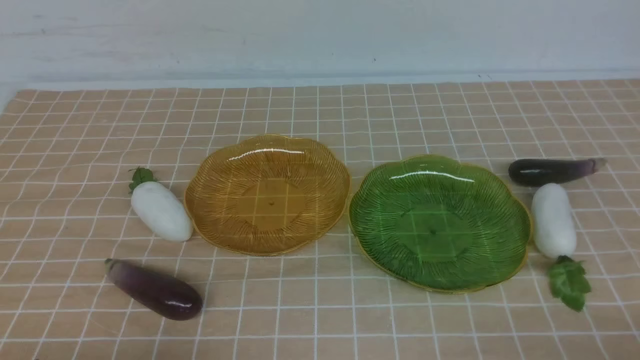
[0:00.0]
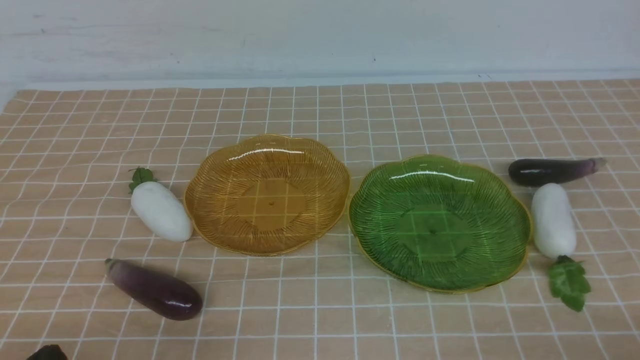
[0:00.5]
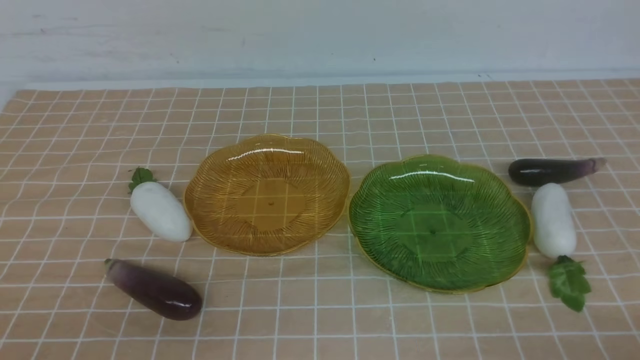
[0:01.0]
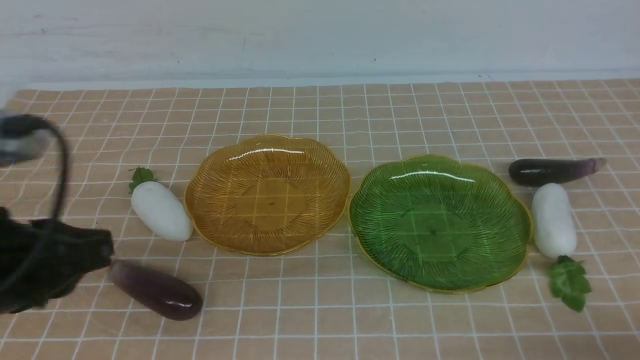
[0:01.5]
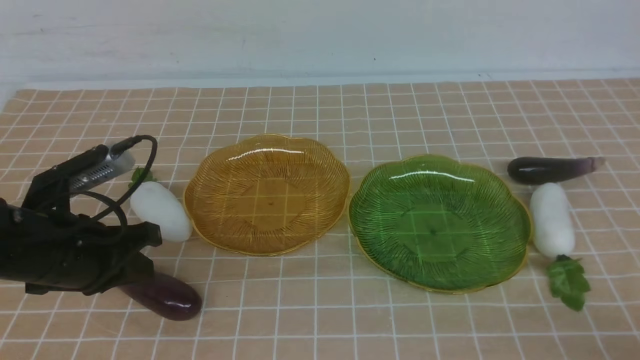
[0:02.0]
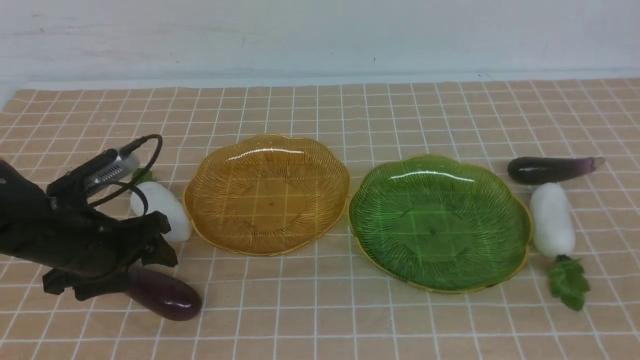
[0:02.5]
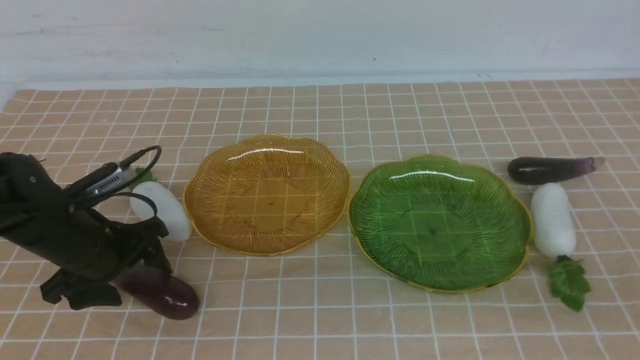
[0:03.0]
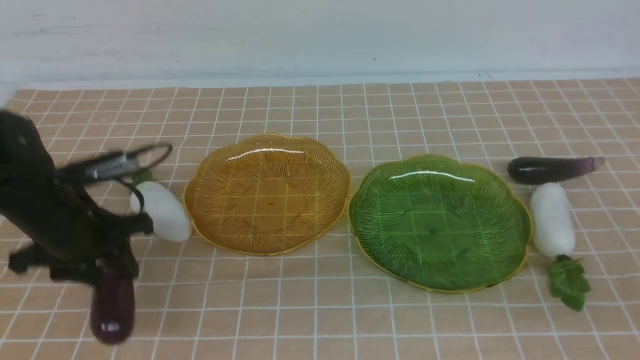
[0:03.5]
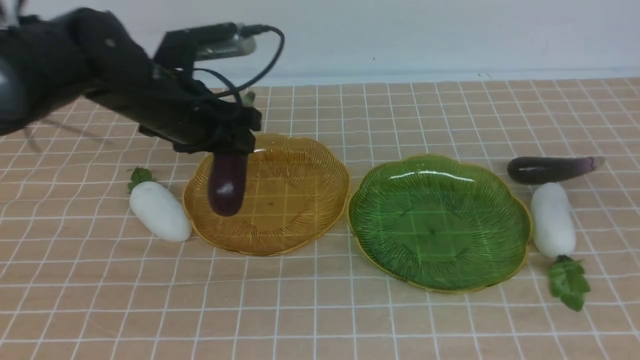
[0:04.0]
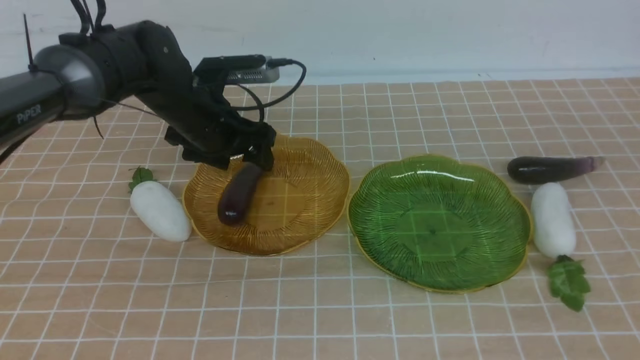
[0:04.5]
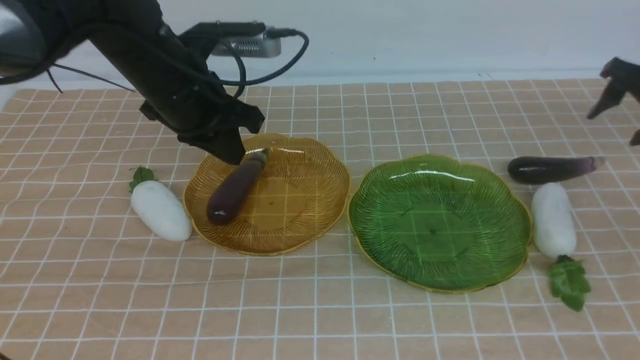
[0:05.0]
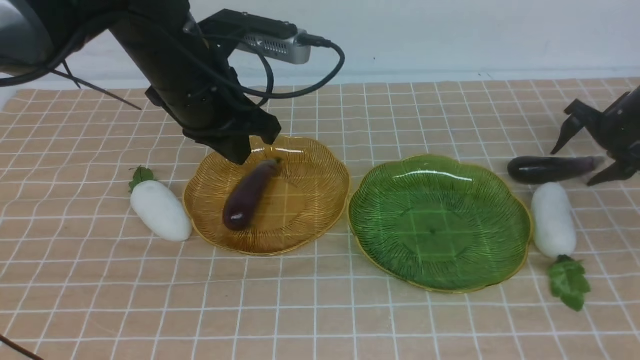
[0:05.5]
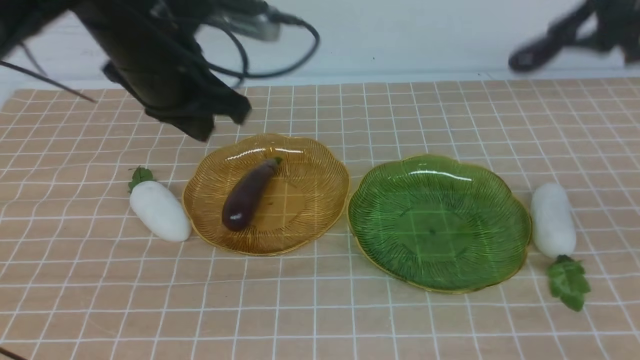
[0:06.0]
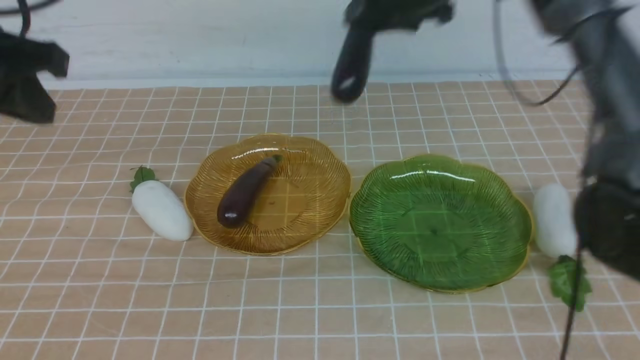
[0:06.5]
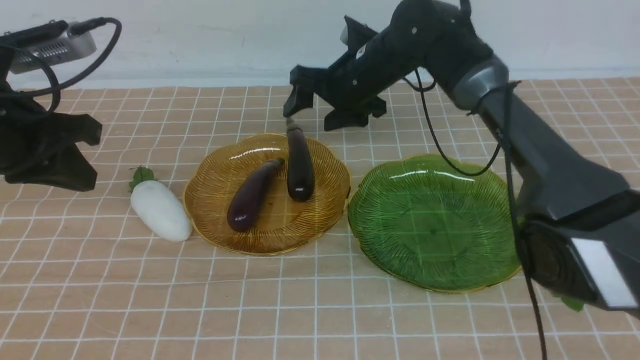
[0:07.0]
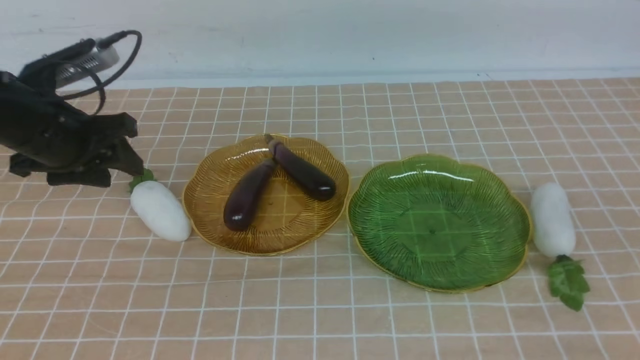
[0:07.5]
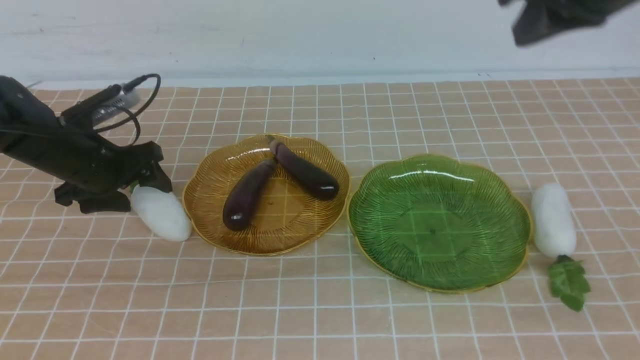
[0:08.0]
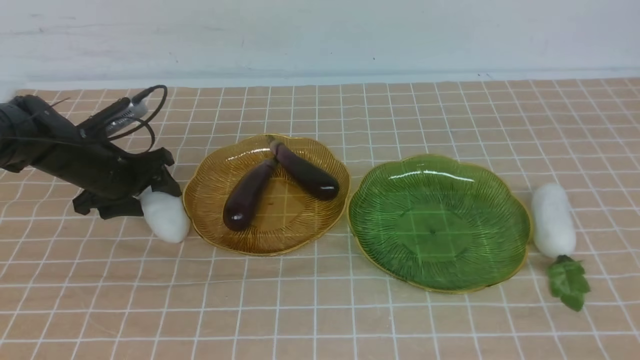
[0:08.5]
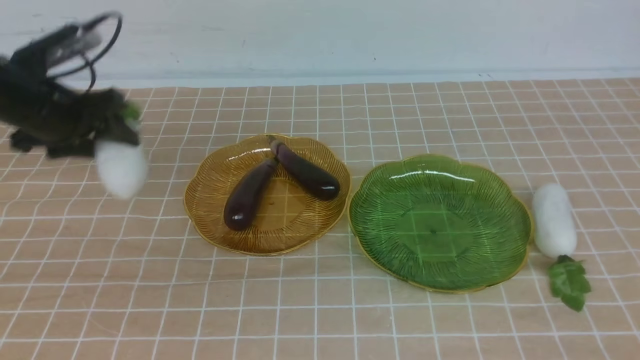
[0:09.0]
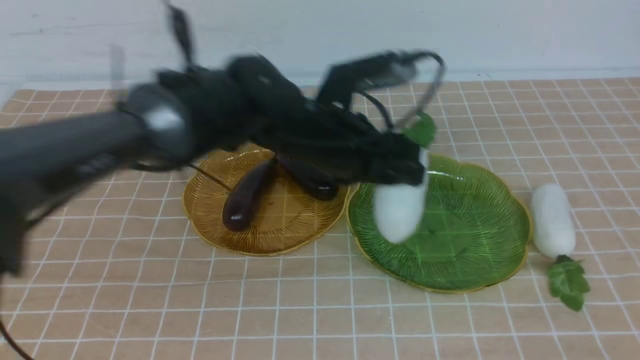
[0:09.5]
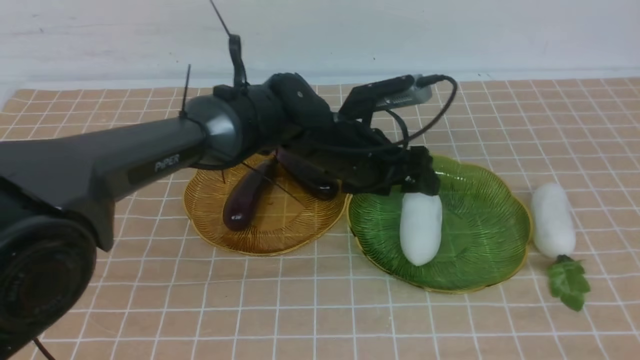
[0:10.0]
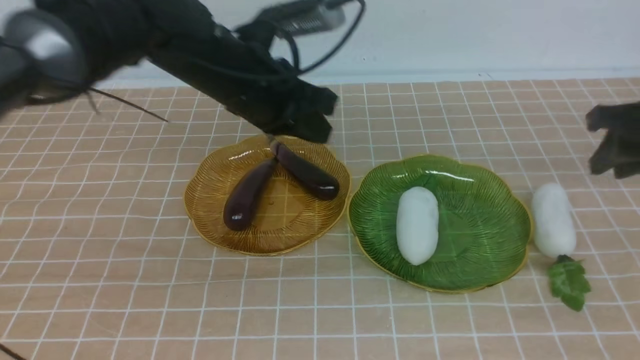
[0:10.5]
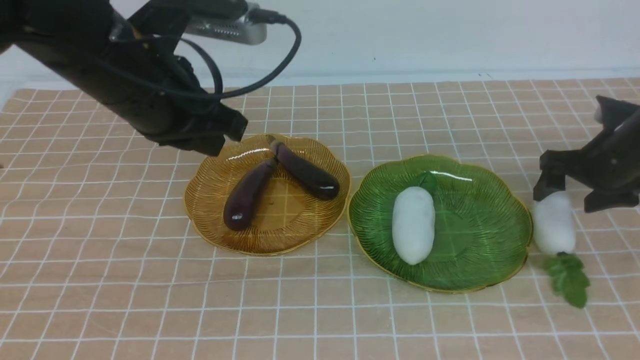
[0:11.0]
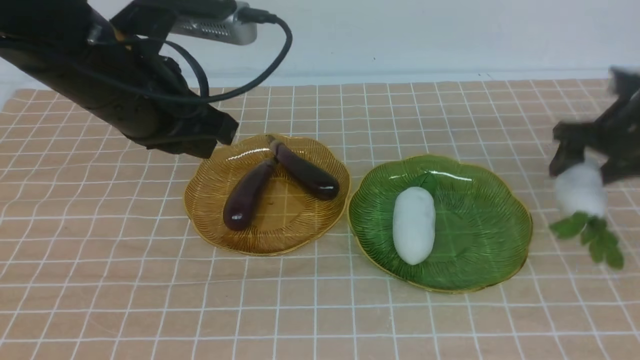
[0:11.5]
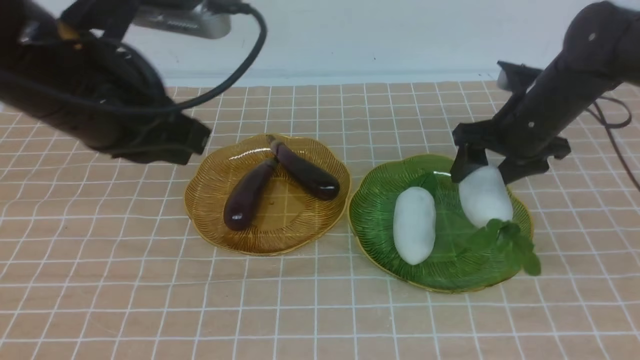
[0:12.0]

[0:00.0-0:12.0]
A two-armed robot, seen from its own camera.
Step, 0:00.0 to 0:04.5: use the left arm to grab an eggplant and put it into the left plate.
Step, 0:05.0 to 0:06.5: use the right arm to grab an eggplant and put it into the left plate.
Step, 0:07.0 to 0:09.5: use the left arm to grab a radish and put it into the right plate.
0:00.0 to 0:02.0: The left gripper goes approximately 20 cm forward, and opens up.
0:02.0 to 0:04.0: The right gripper goes roughly 30 cm forward, and opens its fingers. The left gripper is displaced forward, to the right and upward by roughly 20 cm, and closes its fingers.
0:04.0 to 0:06.0: The left gripper moves to the left, backward and upward, roughly 20 cm. Meanwhile the right gripper goes some 35 cm to the left.
0:06.0 to 0:08.0: The right gripper travels backward, upward and to the right by some 40 cm, and closes its fingers. The left gripper travels downward and forward by about 20 cm, and opens its fingers.
0:08.0 to 0:10.0: The right gripper goes about 20 cm downward, forward and to the right, and opens its fingers. The left gripper goes roughly 25 cm to the right and upward, and closes its fingers.
0:10.0 to 0:12.0: The left gripper goes roughly 20 cm backward, to the left and upward; the right gripper heads upward and to the left, covering some 15 cm, and opens up.

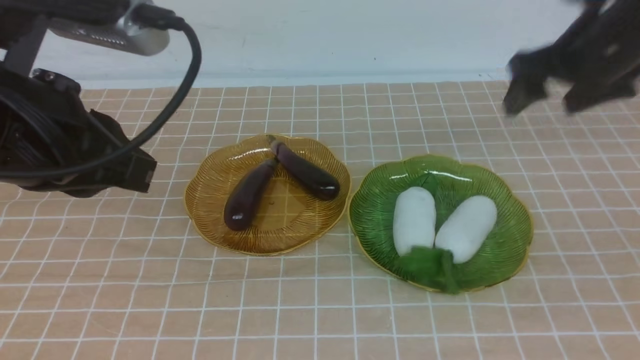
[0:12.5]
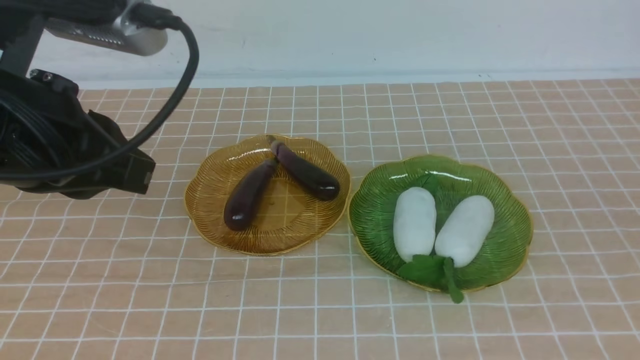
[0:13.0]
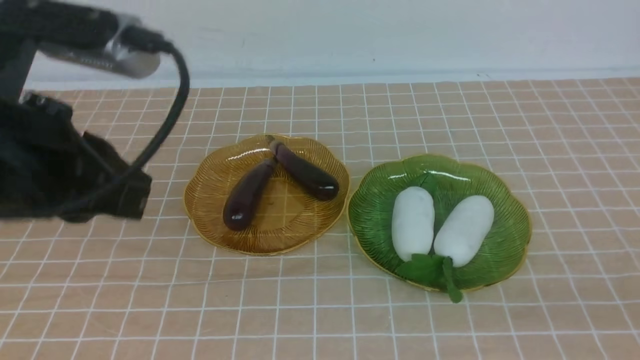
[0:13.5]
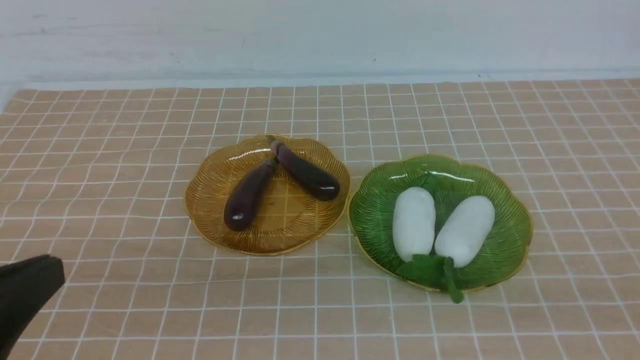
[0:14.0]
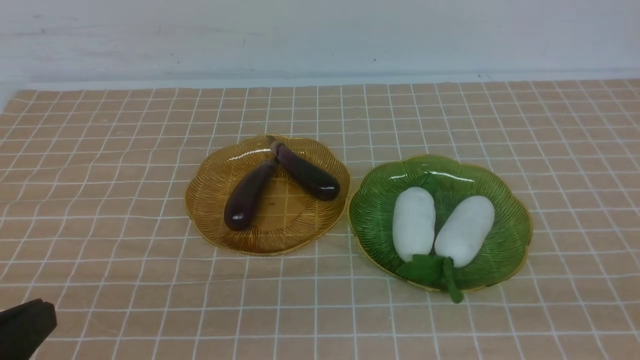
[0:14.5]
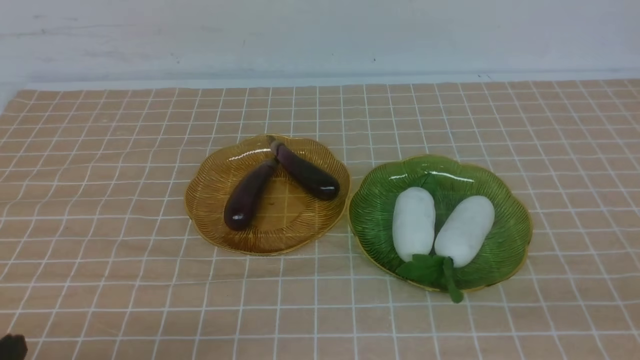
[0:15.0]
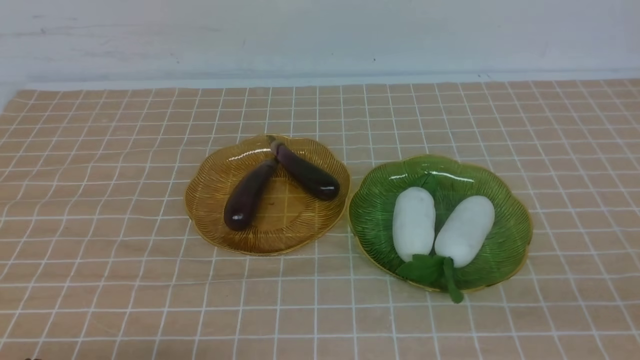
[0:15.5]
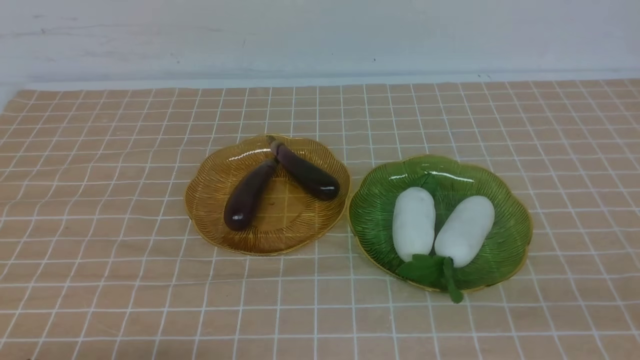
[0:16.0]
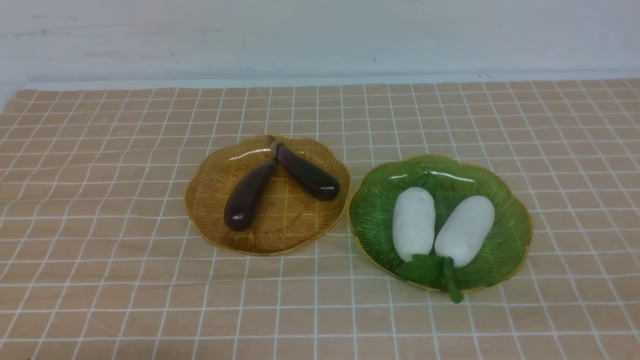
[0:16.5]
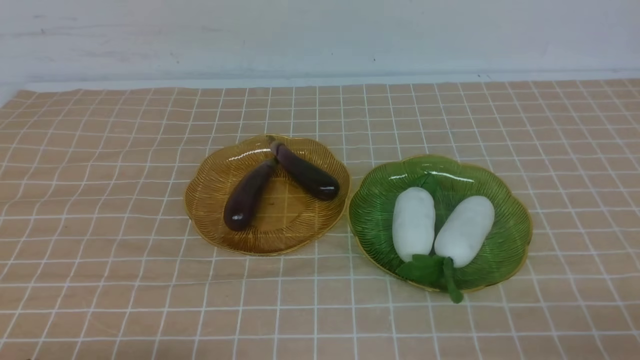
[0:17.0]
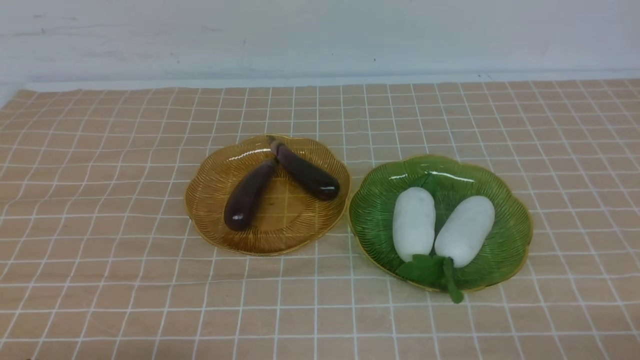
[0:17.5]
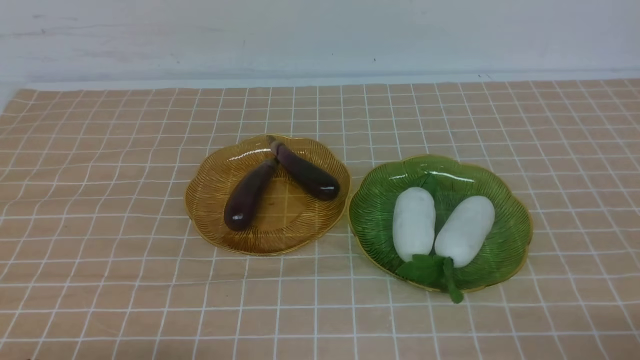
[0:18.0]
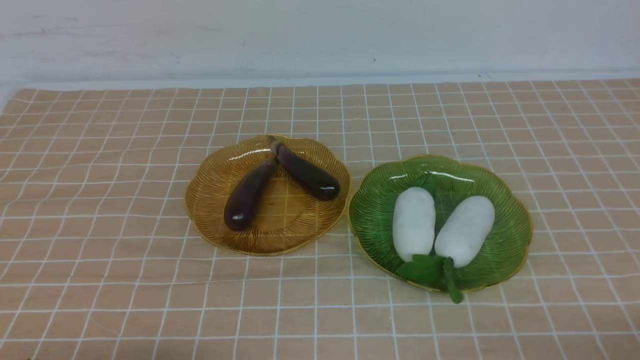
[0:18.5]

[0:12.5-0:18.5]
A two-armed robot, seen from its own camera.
0:12.5 to 0:14.5: The right gripper moves downward, roughly 10 cm; the left gripper moves downward and backward, about 25 cm.
0:16.5 to 0:18.5: The two grippers keep their place.
